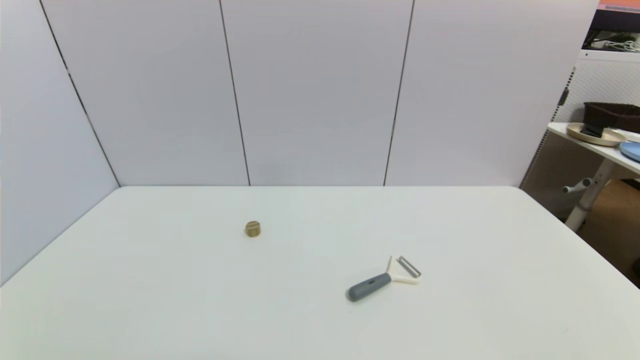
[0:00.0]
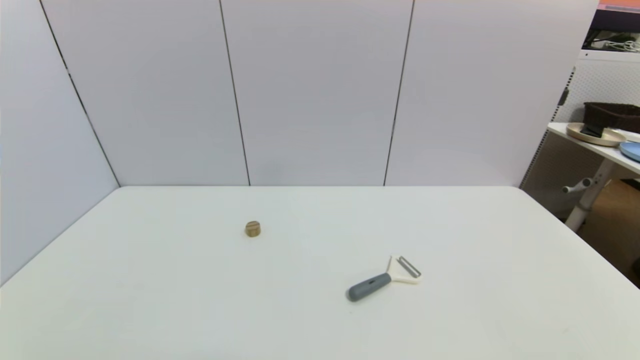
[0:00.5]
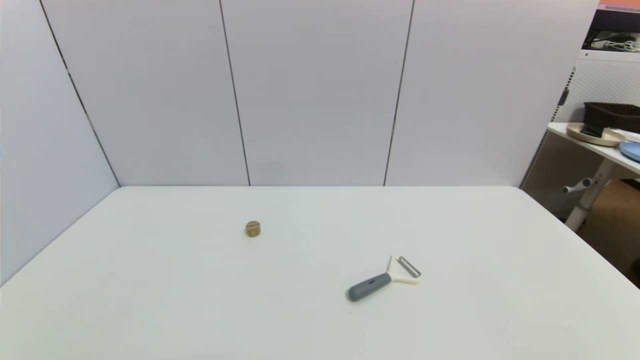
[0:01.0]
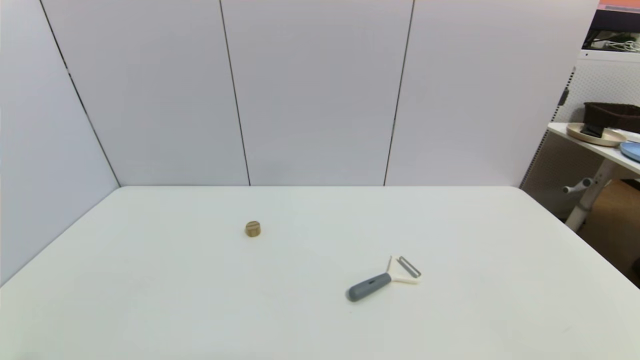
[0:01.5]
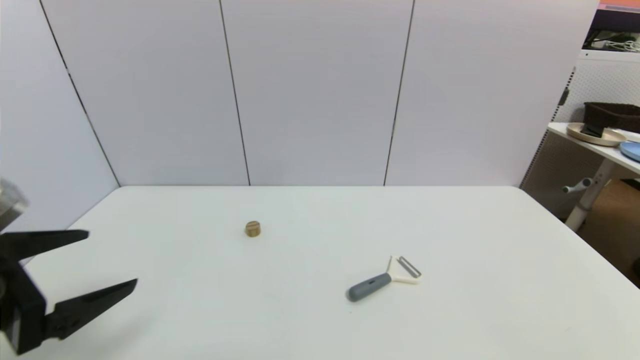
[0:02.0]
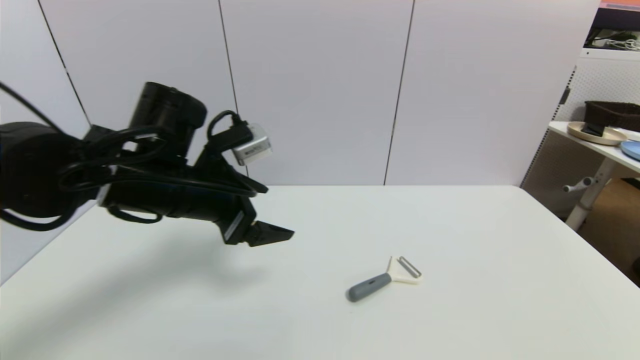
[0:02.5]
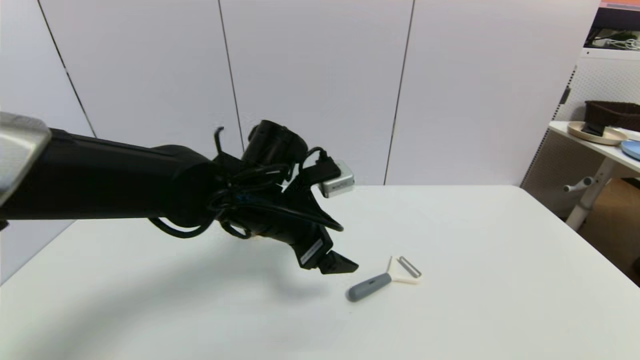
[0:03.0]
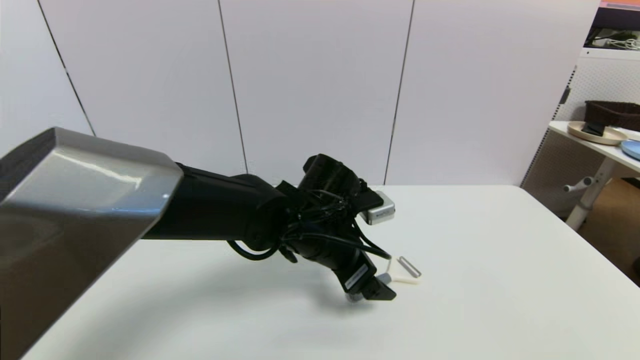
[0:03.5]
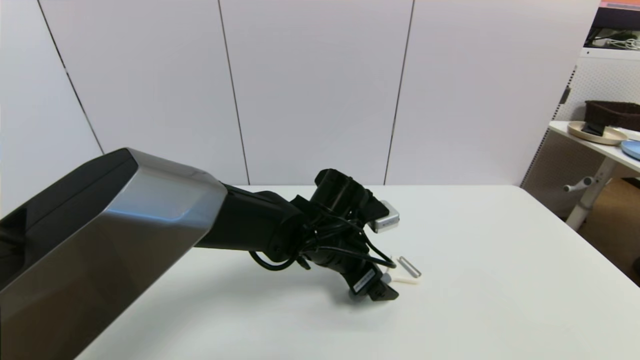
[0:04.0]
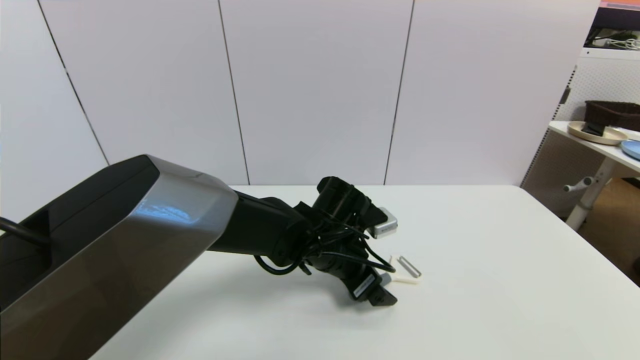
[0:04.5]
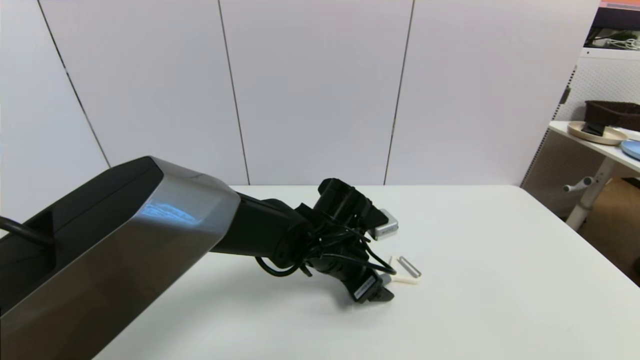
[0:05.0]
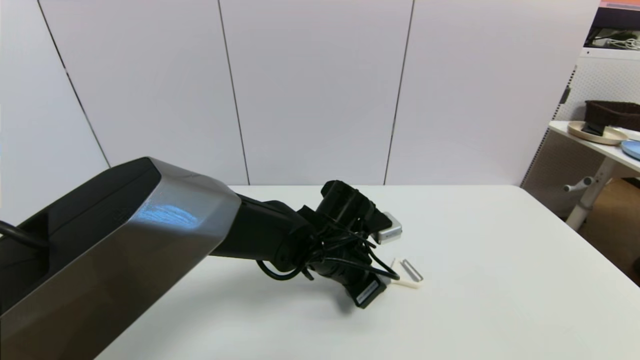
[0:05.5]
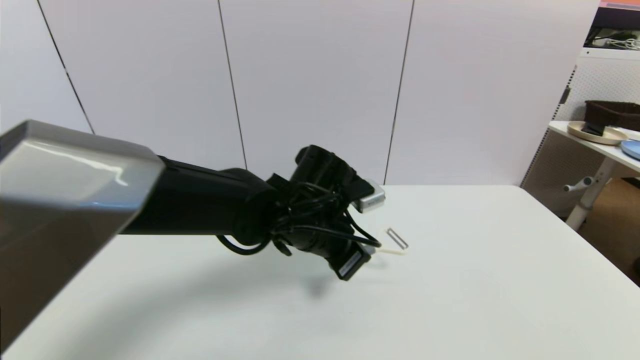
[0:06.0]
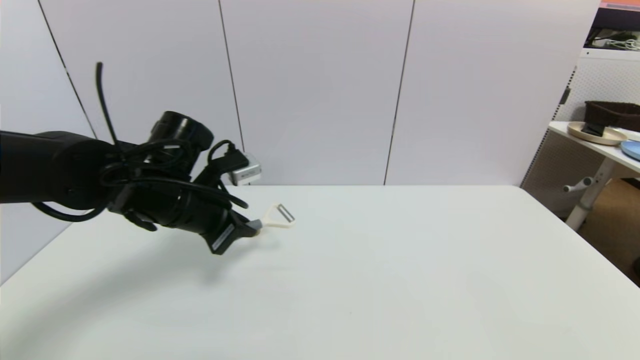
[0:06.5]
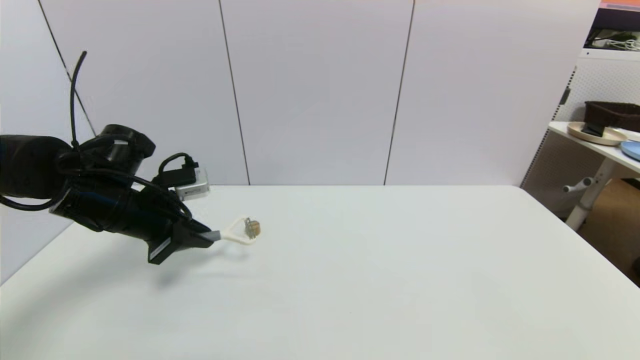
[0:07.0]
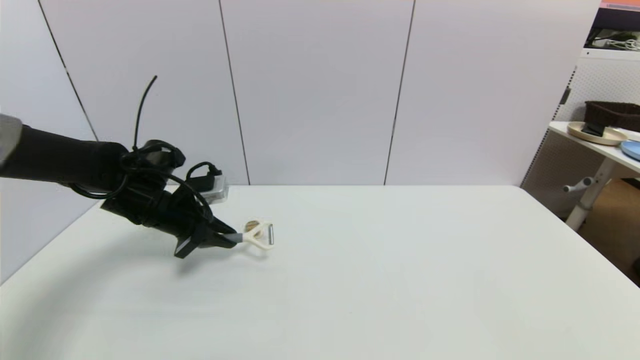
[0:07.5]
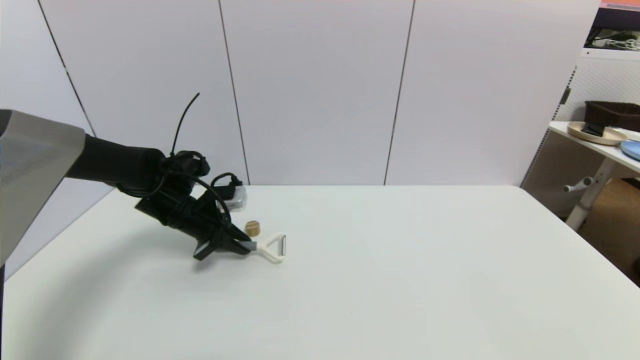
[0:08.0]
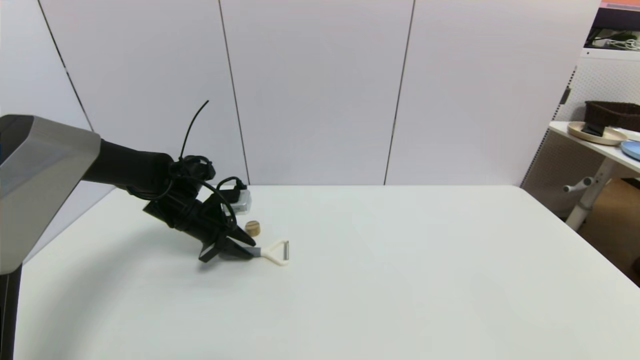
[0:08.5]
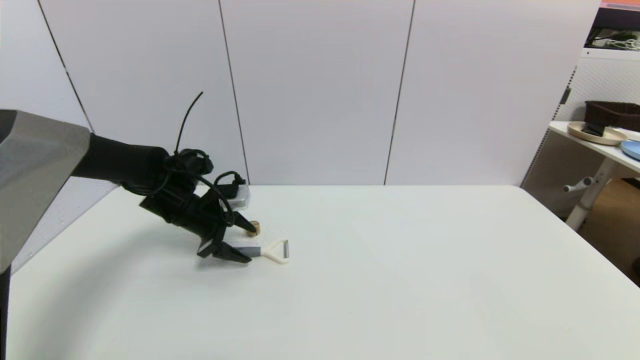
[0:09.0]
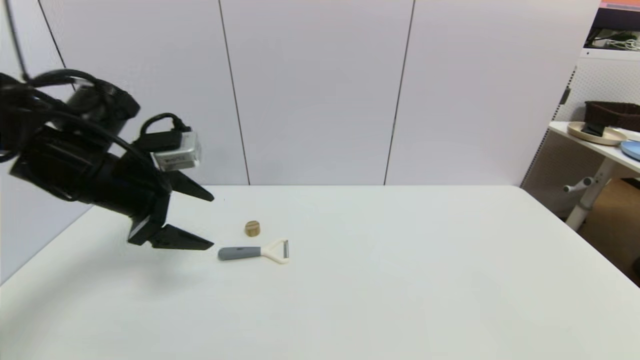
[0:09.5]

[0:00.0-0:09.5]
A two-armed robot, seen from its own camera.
Step, 0:02.0 to 0:05.5: Grasp the peeler with left gripper.
Step, 0:06.0 to 0:09.0: Place the peeler on the table with left gripper.
0:00.0 to 0:02.0: The left gripper heads upward and forward, covering roughly 20 cm.
0:02.0 to 0:04.0: The left gripper is displaced to the right and forward by roughly 35 cm.
0:04.0 to 0:05.5: The left gripper closes its fingers.
0:05.5 to 0:07.5: The left gripper is displaced to the left by some 25 cm.
0:07.5 to 0:09.5: The left gripper goes roughly 15 cm upward and backward, and opens its fingers.

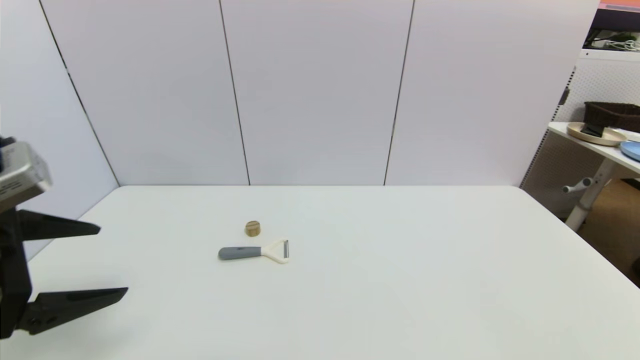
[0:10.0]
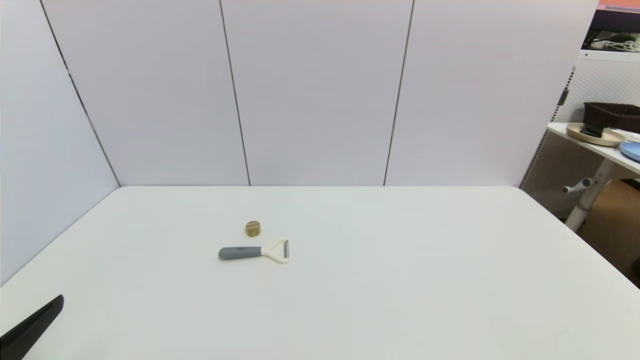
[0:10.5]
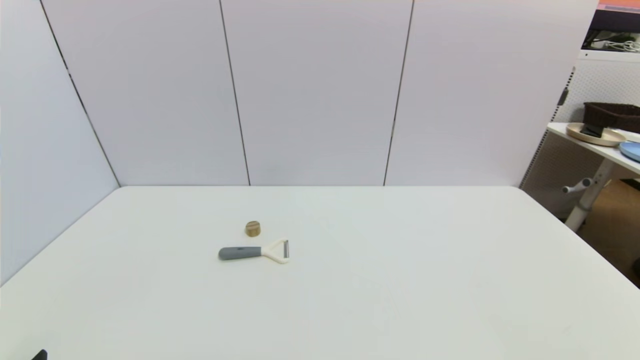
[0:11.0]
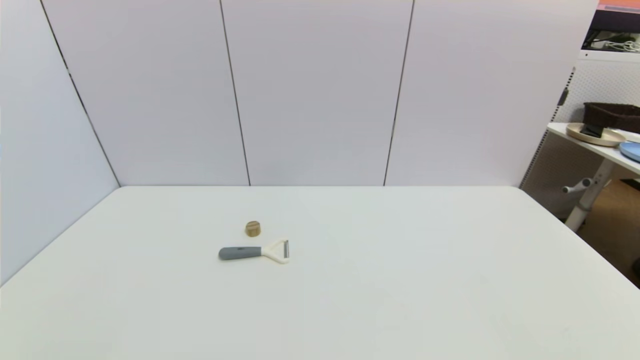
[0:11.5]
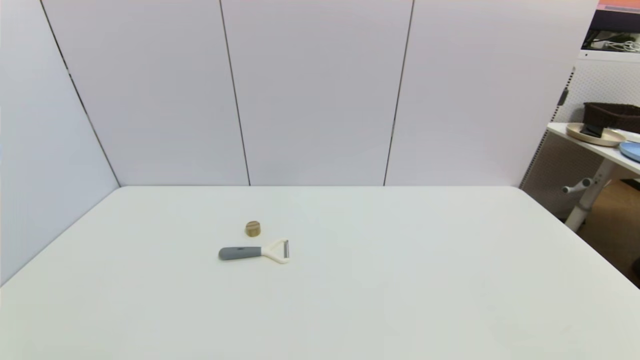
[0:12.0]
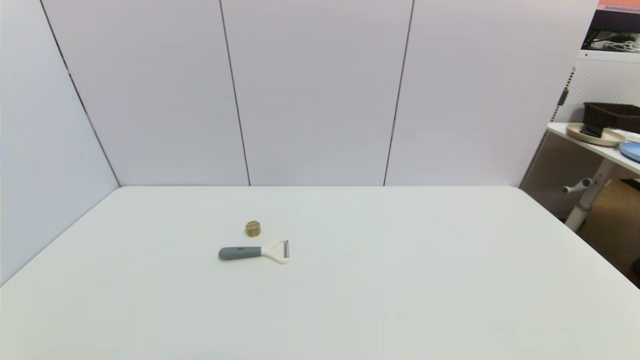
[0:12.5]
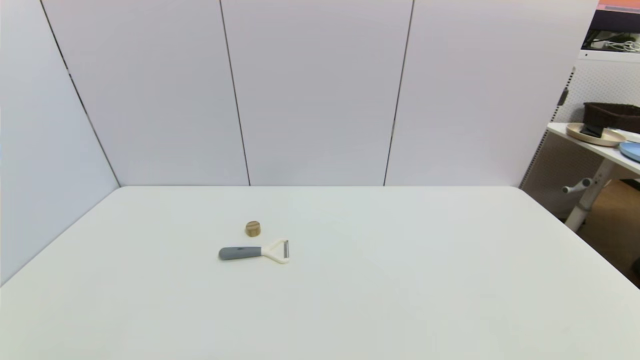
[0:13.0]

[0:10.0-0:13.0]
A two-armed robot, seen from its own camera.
0:10.0 to 0:11.5: The left gripper shifts about 20 cm downward and backward.
